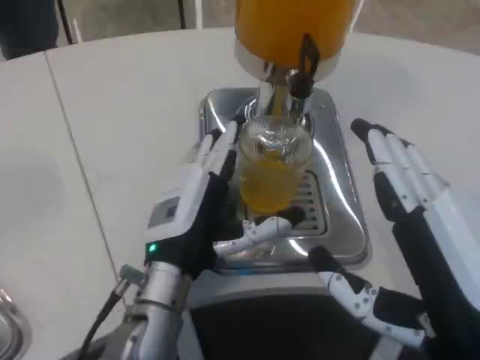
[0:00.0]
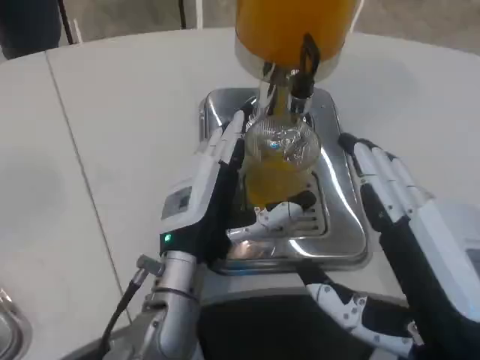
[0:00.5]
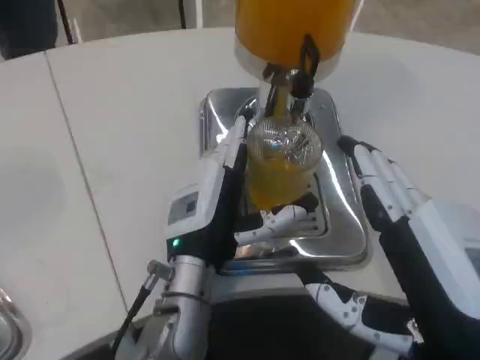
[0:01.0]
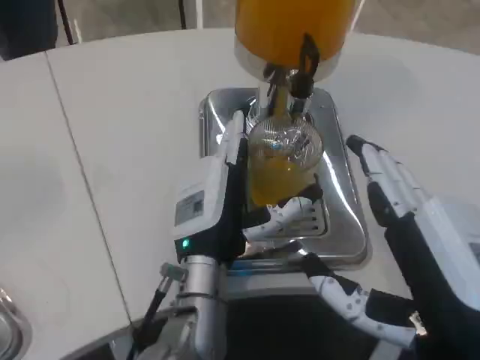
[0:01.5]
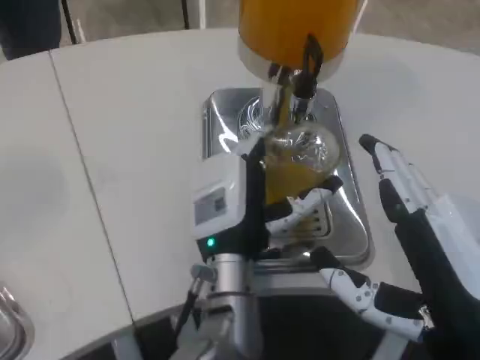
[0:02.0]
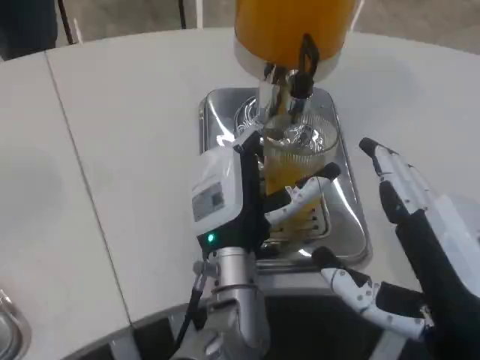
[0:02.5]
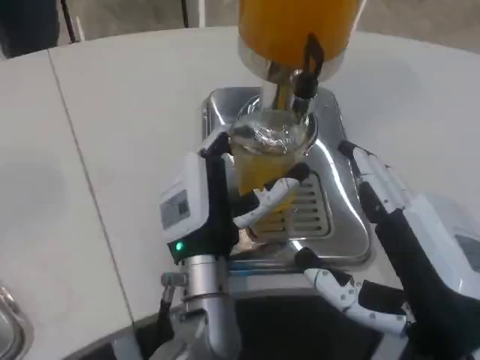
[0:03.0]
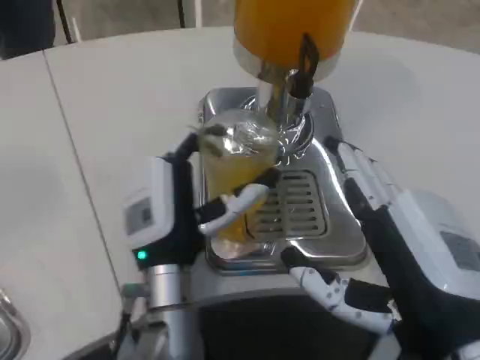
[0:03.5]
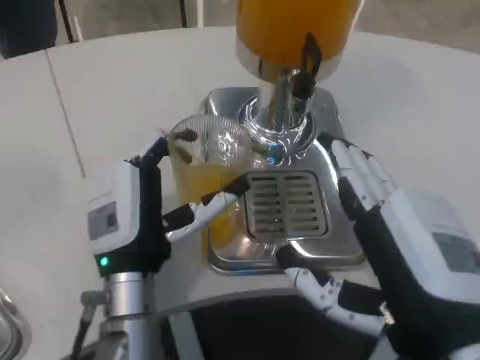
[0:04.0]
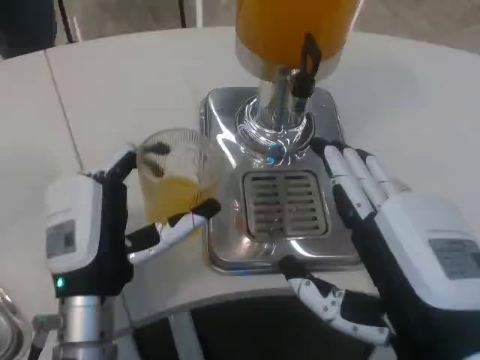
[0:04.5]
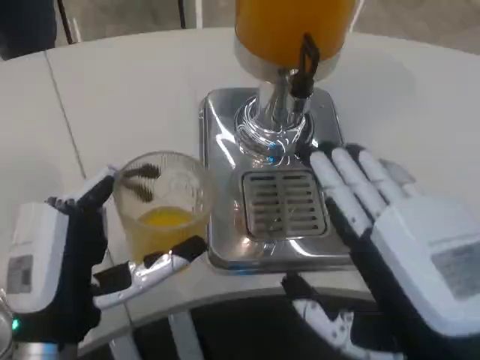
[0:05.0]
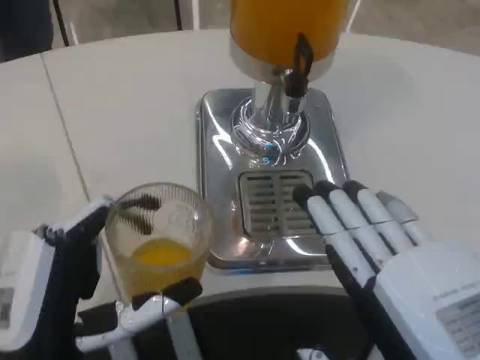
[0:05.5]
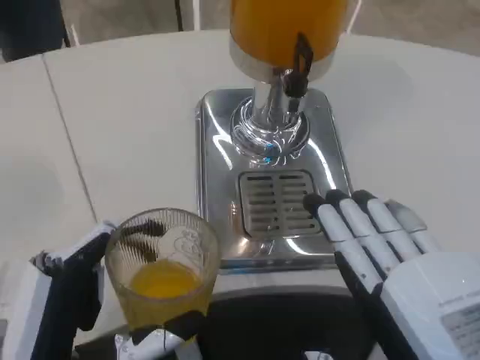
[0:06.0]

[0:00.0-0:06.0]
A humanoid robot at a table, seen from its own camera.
Task of the whole recording: Grasp the cup under the faucet to collect the drink, then remove the cup.
0:00.0 to 0:02.0: The left hand moves to the right, roughly 10 cm.
0:02.0 to 0:04.0: The left hand heads to the left, covering about 10 cm.
0:04.0 to 0:06.0: The right hand ends up about 5 cm from where it was, while the left hand moves backward and to the left, about 15 cm.
